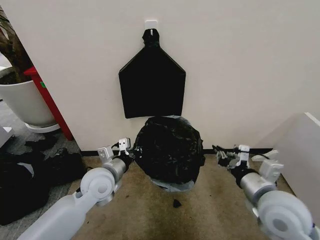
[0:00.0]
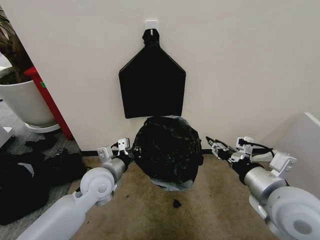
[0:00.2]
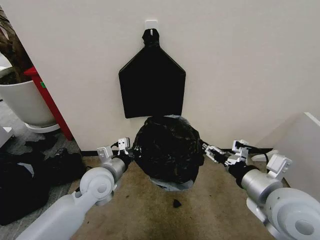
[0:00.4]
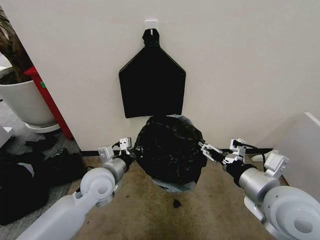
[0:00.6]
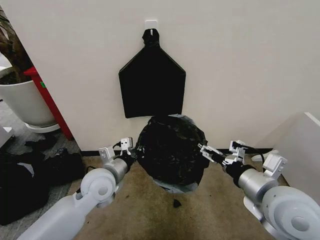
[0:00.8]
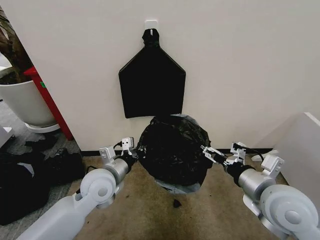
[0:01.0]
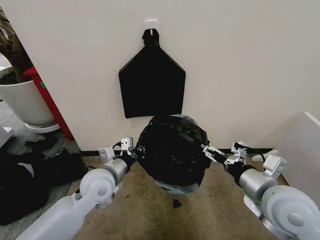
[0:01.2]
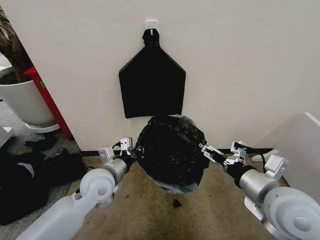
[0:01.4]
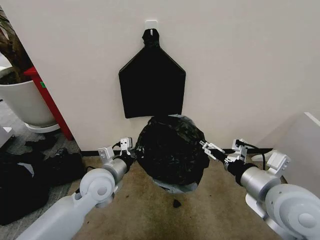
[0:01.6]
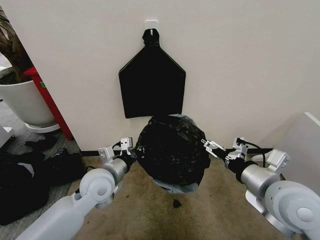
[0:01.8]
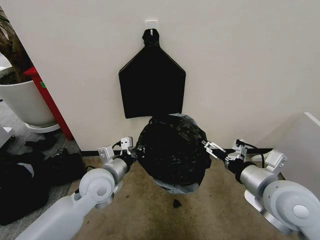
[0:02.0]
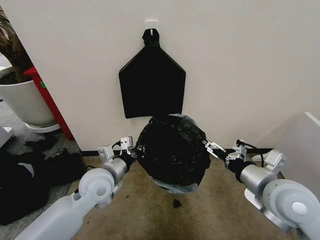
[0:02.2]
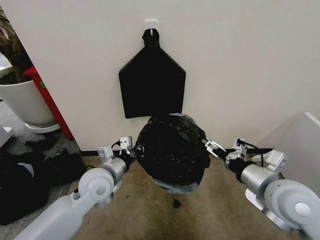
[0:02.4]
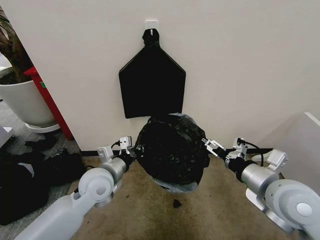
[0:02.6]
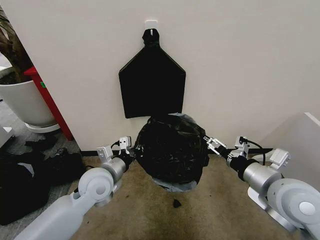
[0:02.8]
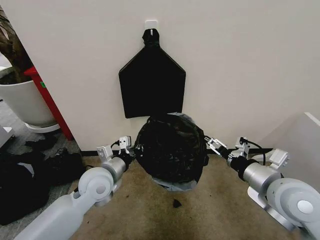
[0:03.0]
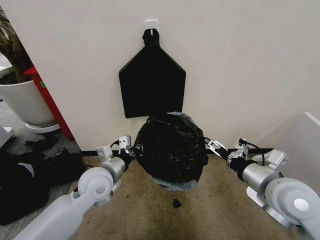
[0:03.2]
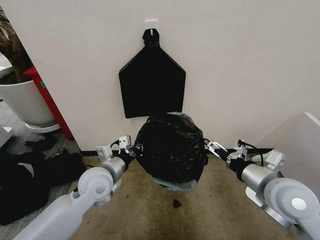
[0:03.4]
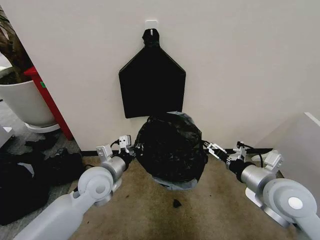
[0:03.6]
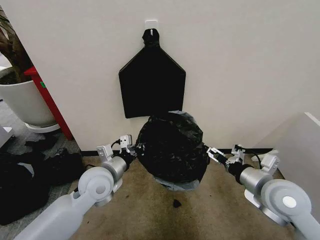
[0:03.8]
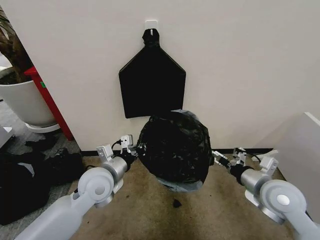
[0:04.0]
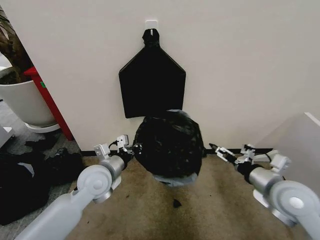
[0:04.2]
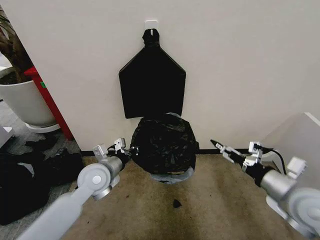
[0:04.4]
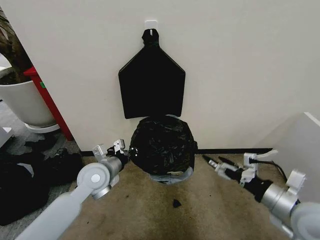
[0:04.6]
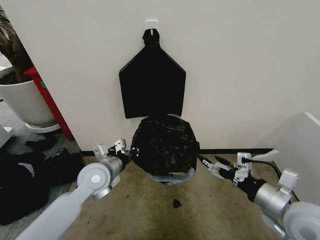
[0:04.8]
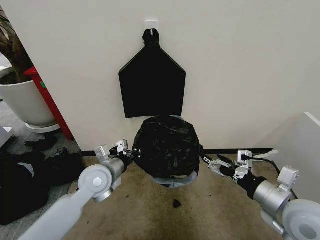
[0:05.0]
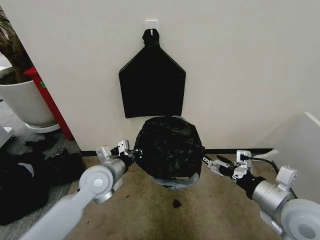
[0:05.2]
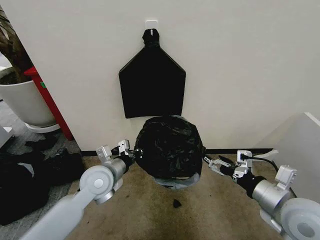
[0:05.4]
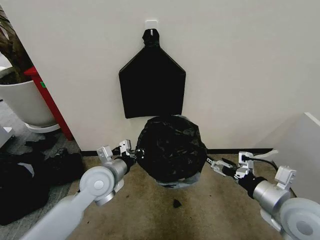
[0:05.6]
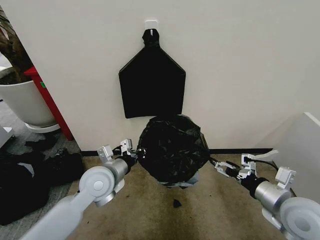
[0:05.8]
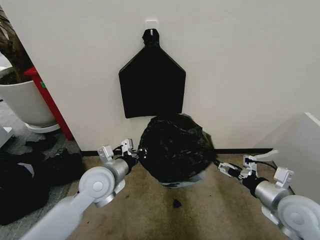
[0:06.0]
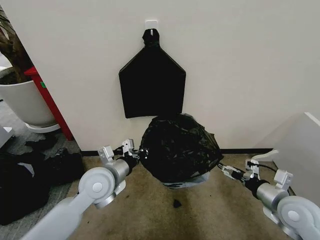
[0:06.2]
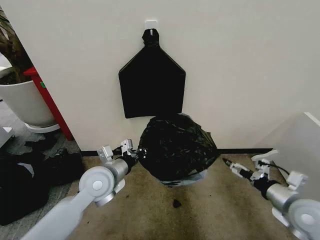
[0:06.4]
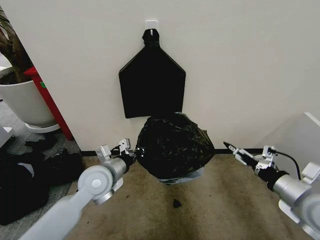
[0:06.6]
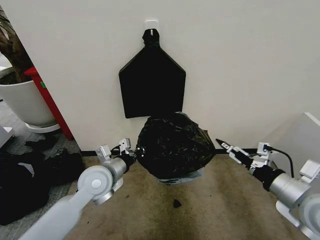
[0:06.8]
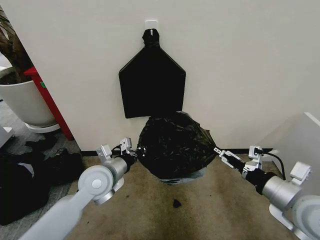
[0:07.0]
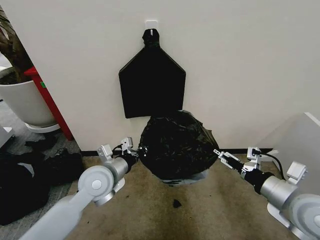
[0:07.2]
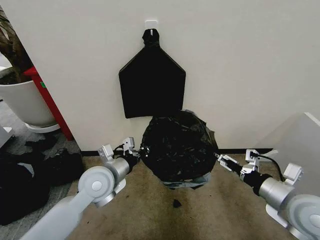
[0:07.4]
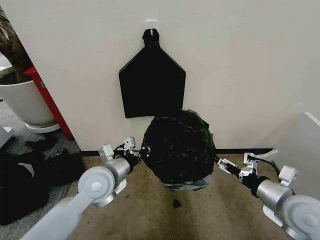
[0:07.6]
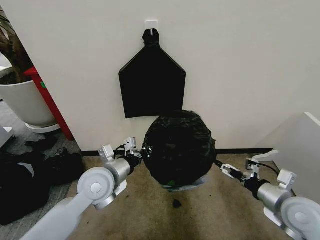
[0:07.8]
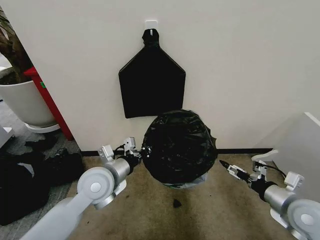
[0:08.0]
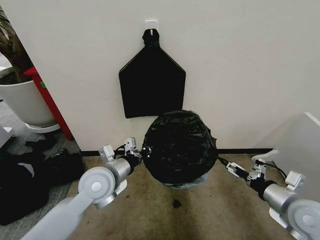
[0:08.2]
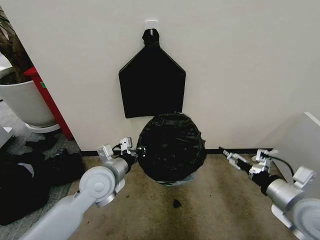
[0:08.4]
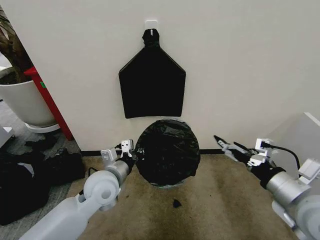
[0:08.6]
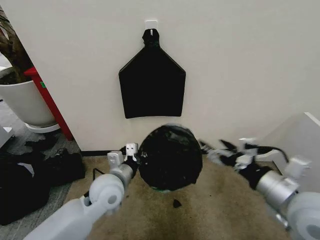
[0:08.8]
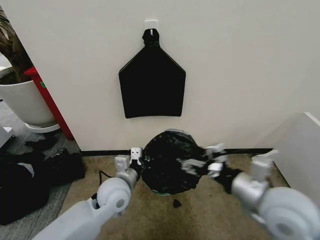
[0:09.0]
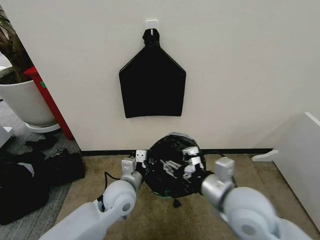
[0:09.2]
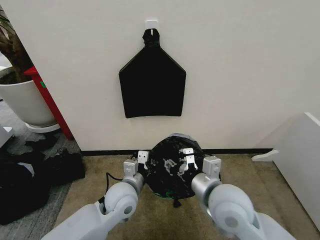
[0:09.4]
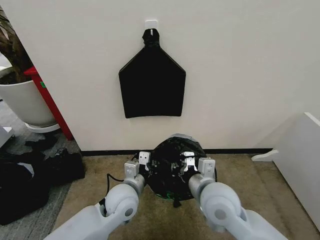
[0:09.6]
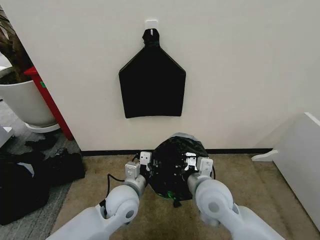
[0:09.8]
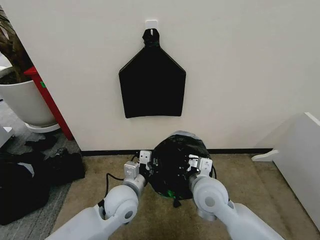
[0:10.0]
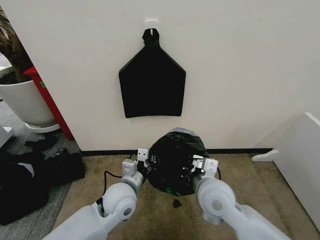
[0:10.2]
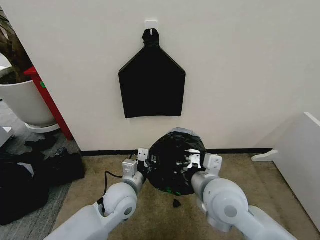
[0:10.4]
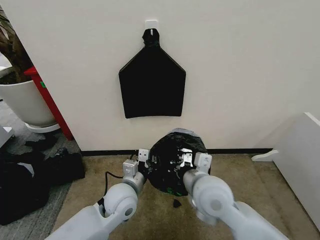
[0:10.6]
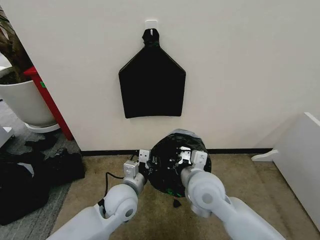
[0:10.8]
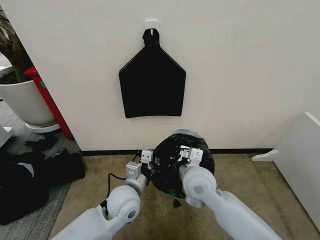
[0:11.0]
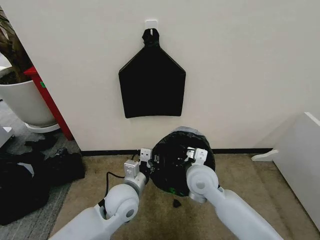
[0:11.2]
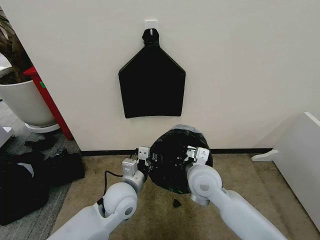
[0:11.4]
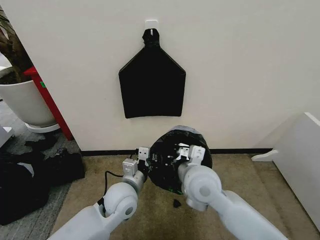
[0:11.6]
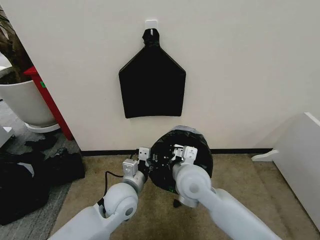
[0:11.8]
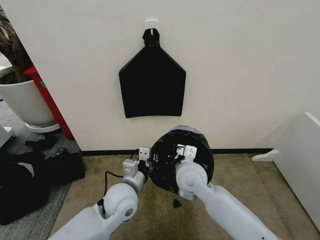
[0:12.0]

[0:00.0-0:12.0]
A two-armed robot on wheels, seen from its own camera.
Task of the whole recording: Place the garbage bag over the trash bin.
0:00.0 to 0:01.6: The right gripper opens its fingers.
0:01.6 to 0:03.0: The grippers stay close to where they were, moving slightly.
0:03.0 to 0:04.4: The right gripper is displaced to the right by approximately 5 cm.
0:04.4 to 0:06.0: The grippers move only a little.
0:06.0 to 0:07.6: The right gripper moves up and down over about 10 cm, changing direction 2 times.
0:07.6 to 0:09.0: The left gripper moves downward, approximately 5 cm. The right gripper moves to the left and upward, some 10 cm.
0:09.0 to 0:10.4: The right gripper travels to the left by some 10 cm, and closes up.
0:10.4 to 0:12.0: The right gripper goes forward and backward, some 10 cm each way, reversing 2 times.

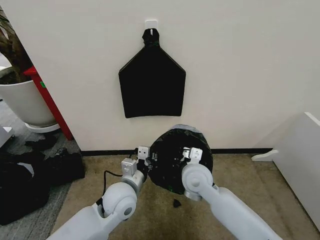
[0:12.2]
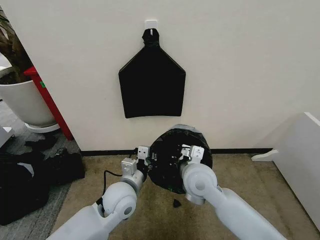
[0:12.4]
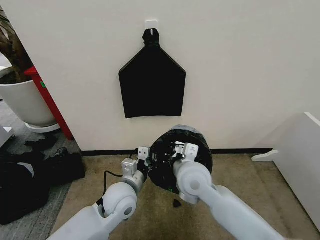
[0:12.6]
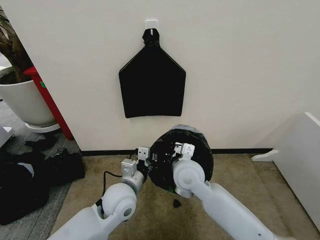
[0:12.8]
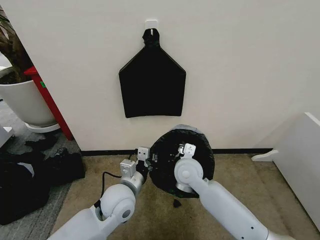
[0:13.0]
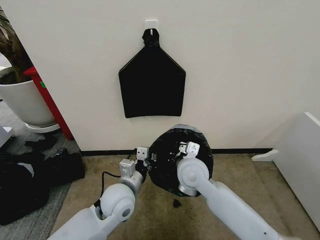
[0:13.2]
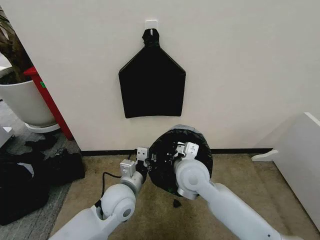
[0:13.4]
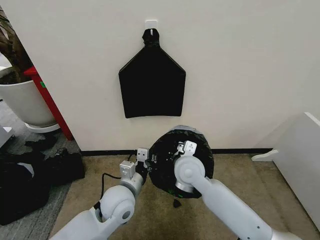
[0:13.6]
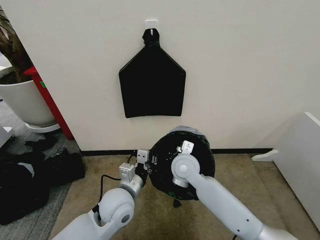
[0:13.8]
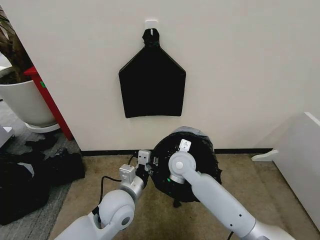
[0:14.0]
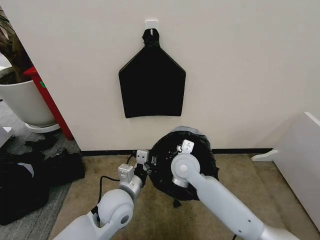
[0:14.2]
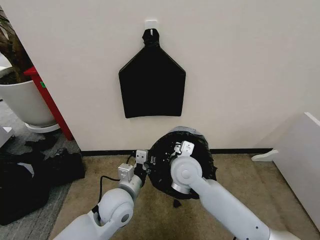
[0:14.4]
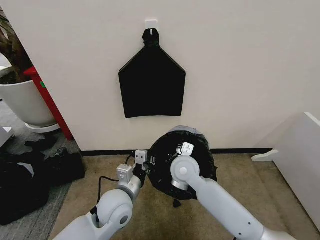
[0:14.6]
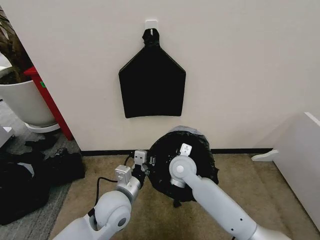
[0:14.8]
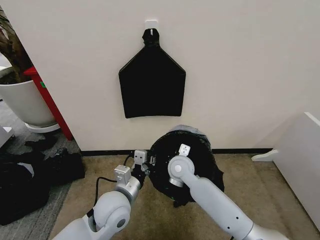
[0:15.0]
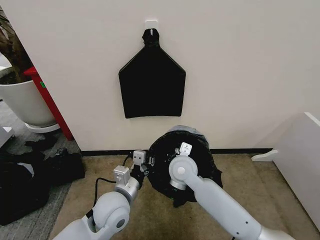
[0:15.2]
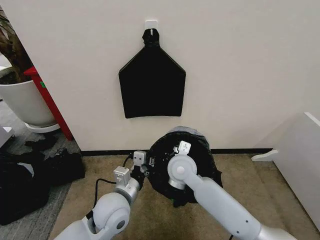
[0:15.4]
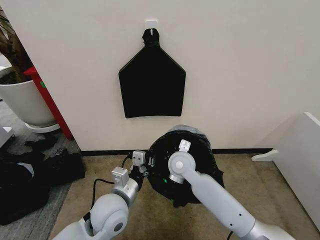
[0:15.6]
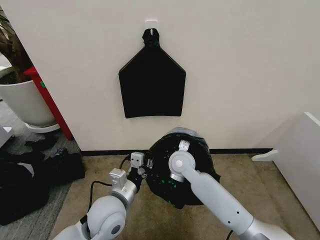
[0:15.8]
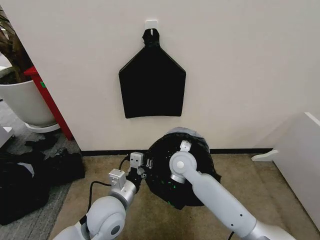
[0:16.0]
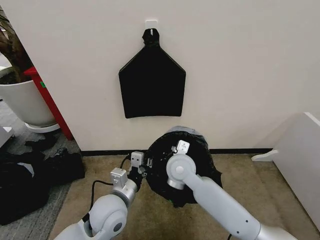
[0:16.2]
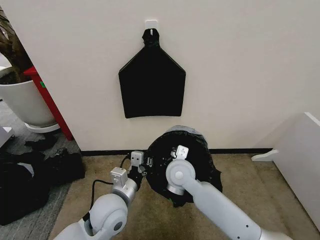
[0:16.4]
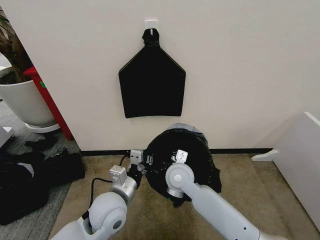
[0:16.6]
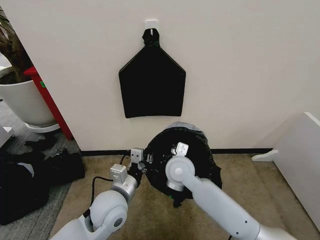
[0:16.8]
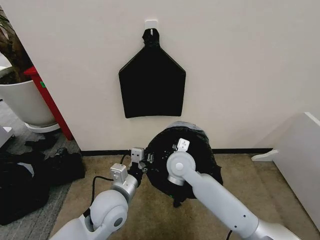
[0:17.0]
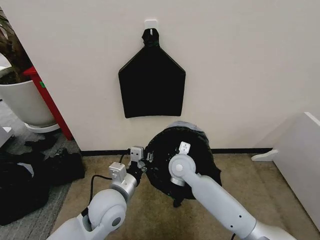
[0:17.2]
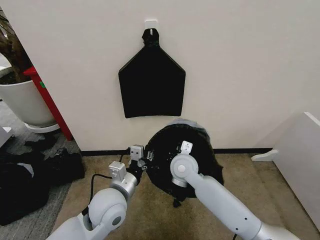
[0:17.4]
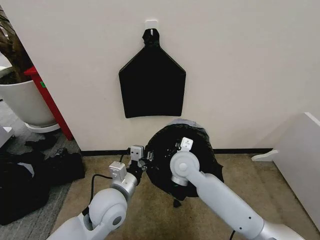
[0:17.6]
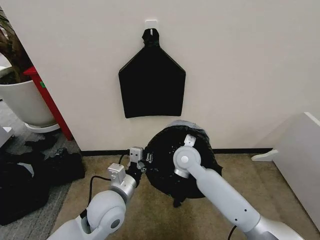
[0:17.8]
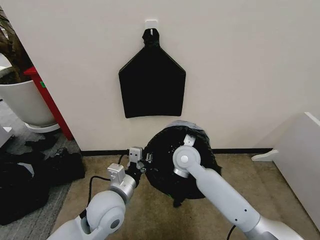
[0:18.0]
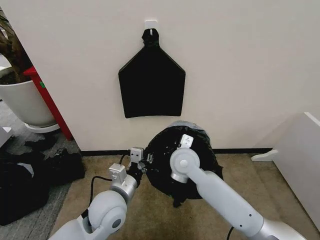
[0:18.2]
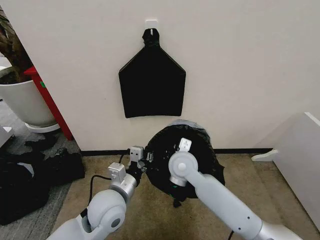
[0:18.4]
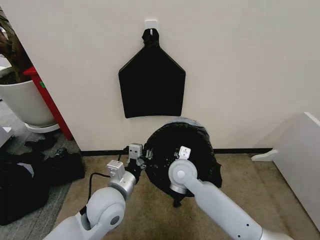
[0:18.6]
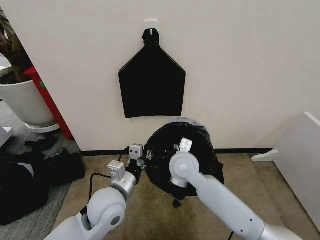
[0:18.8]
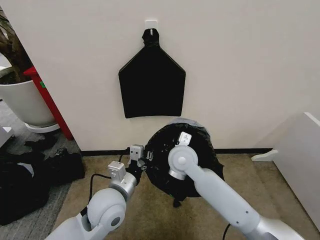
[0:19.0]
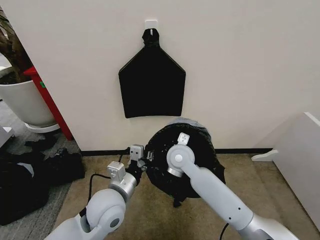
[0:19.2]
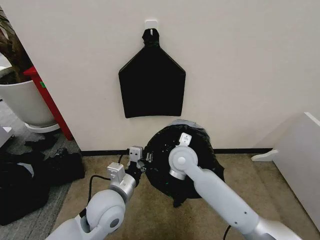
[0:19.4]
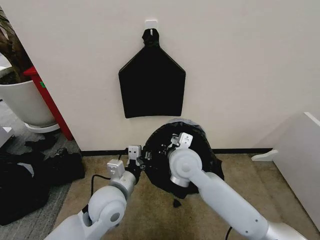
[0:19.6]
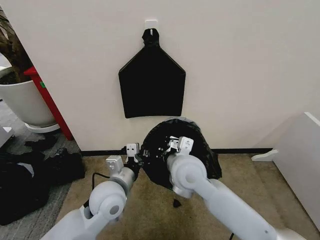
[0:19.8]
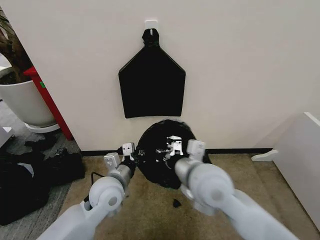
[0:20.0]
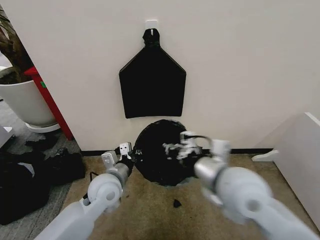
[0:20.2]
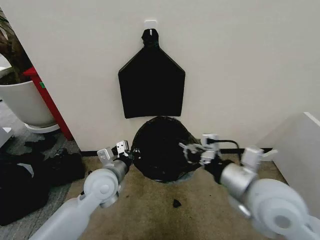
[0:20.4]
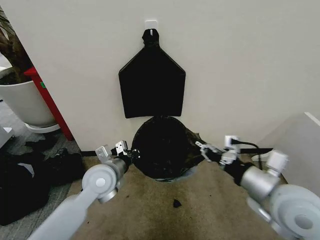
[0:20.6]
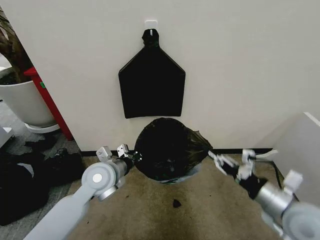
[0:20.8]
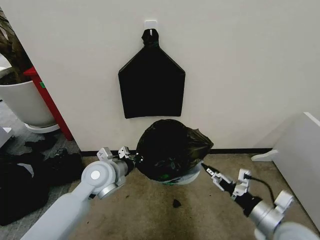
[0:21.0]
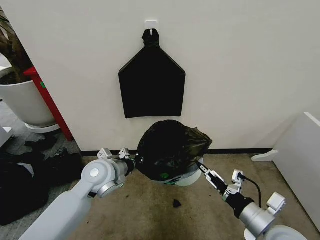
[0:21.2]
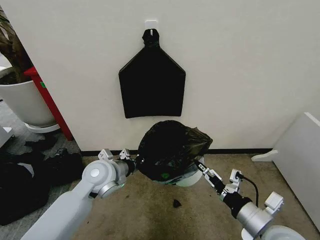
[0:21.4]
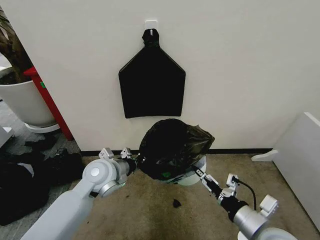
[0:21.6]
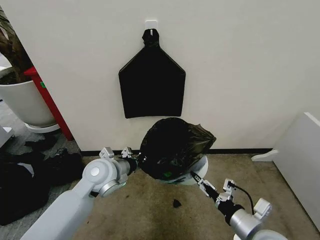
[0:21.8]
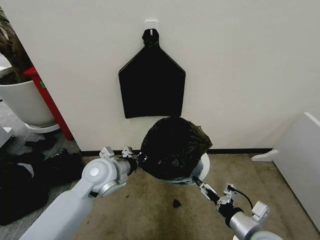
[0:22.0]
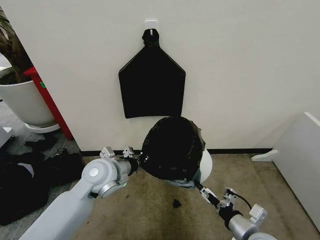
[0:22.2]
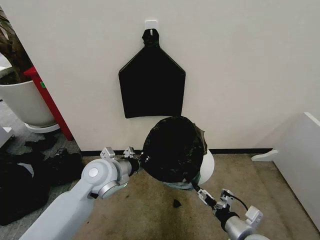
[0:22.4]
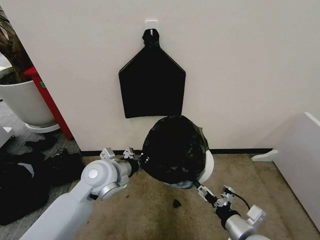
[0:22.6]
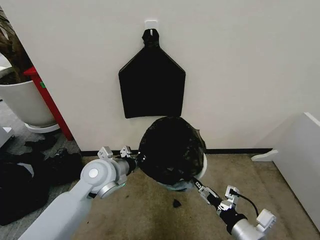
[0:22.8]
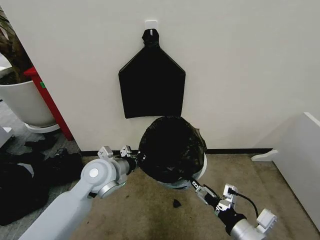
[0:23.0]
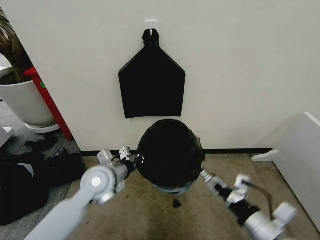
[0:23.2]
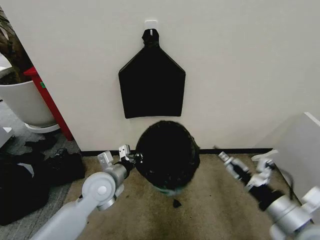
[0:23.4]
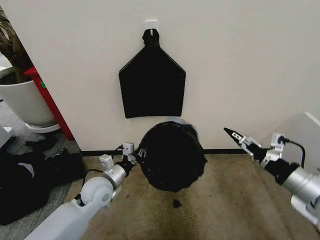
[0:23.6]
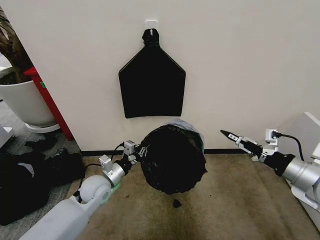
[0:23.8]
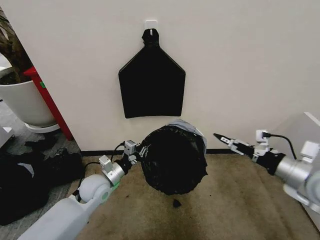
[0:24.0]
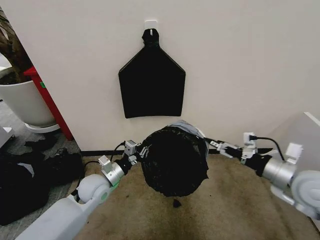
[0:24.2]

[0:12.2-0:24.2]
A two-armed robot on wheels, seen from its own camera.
Task of the whole recording: Place the garbage bag over the trash bin.
0:12.2 to 0:13.8: The right gripper ends up approximately 5 cm from where it was.
0:13.8 to 0:16.6: The grippers stay close to where they were, moving slightly.
0:16.6 to 0:18.2: The right gripper heads upward, covering roughly 5 cm.
0:18.2 to 0:19.8: The right gripper shifts some 5 cm backward.
0:19.8 to 0:21.2: The left gripper heads forward, covering approximately 5 cm; the right gripper goes approximately 25 cm to the right and backward, and opens its fingers.
0:21.2 to 0:22.6: The right gripper travels downward by roughly 5 cm.
0:22.6 to 0:24.2: The left gripper moves downward, about 10 cm; the right gripper shifts roughly 20 cm upward, forward and to the right.
